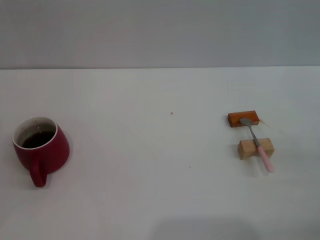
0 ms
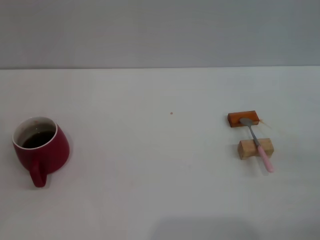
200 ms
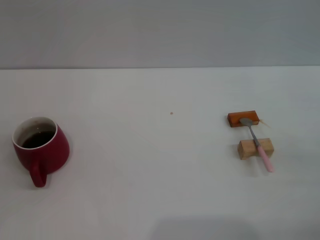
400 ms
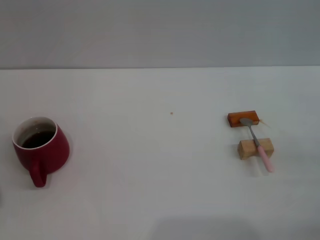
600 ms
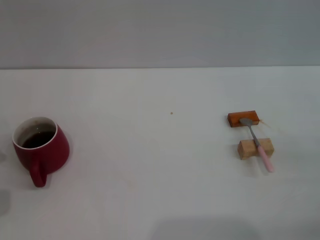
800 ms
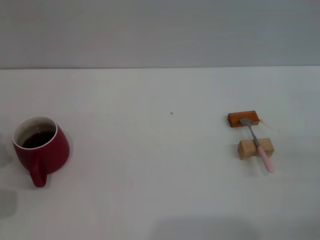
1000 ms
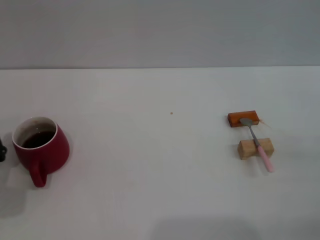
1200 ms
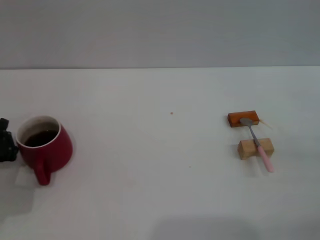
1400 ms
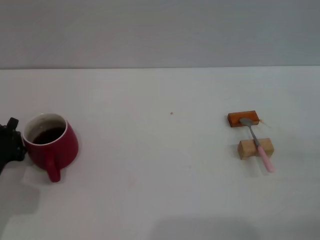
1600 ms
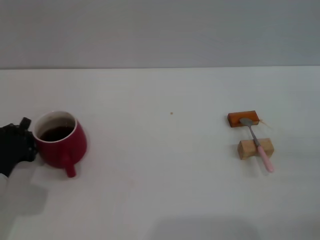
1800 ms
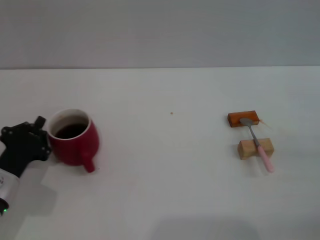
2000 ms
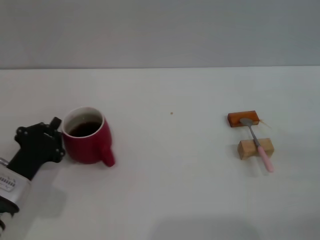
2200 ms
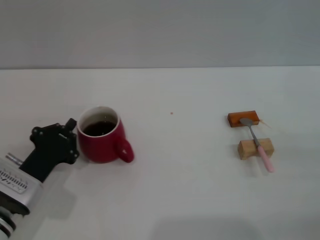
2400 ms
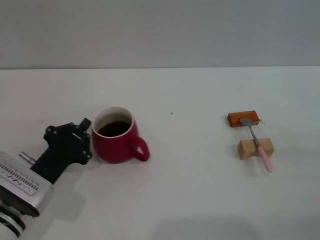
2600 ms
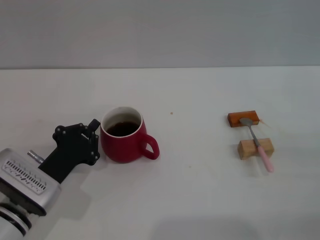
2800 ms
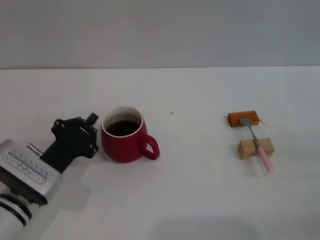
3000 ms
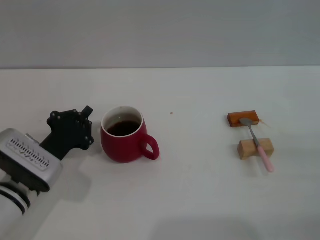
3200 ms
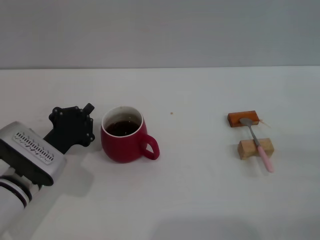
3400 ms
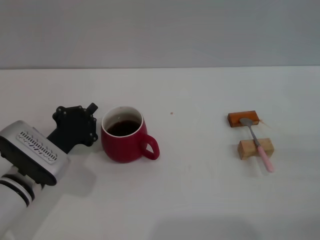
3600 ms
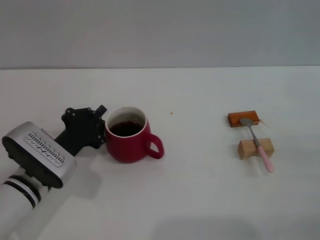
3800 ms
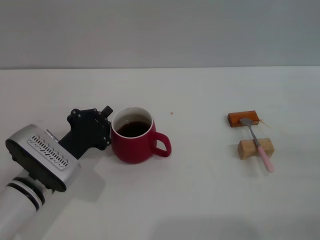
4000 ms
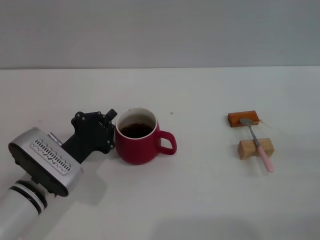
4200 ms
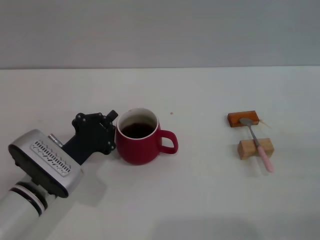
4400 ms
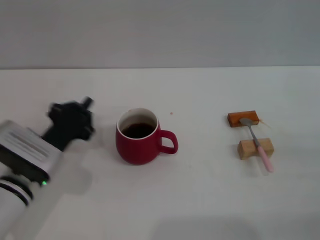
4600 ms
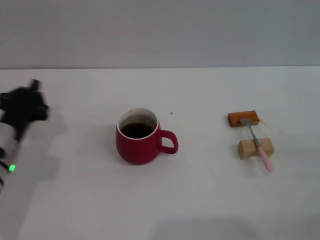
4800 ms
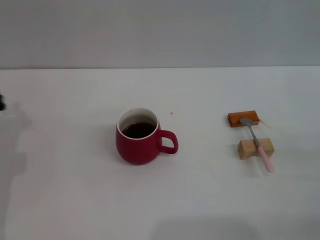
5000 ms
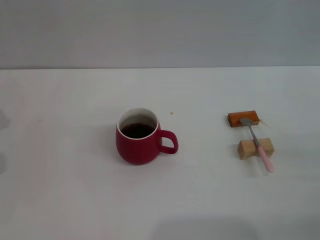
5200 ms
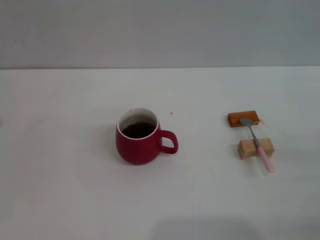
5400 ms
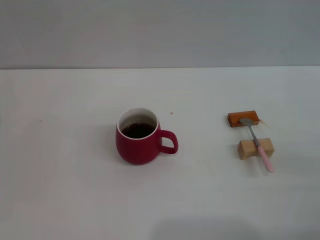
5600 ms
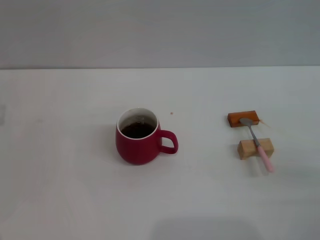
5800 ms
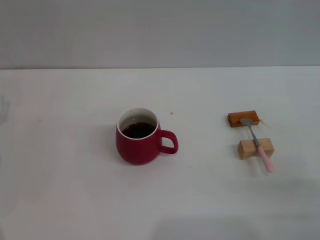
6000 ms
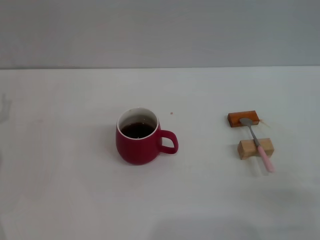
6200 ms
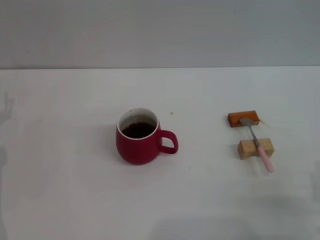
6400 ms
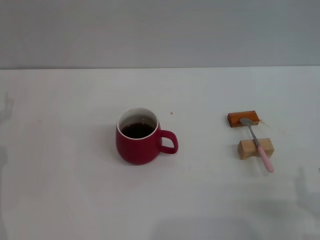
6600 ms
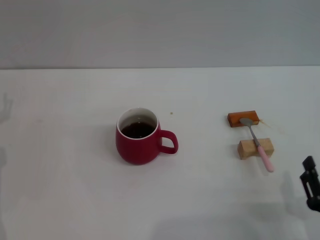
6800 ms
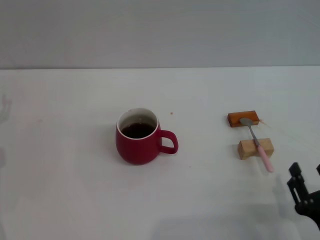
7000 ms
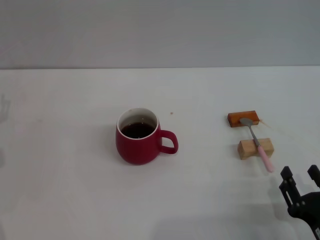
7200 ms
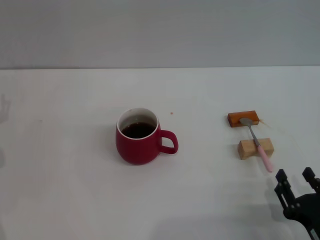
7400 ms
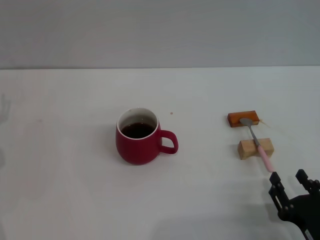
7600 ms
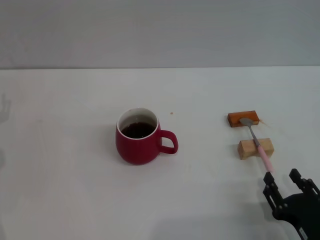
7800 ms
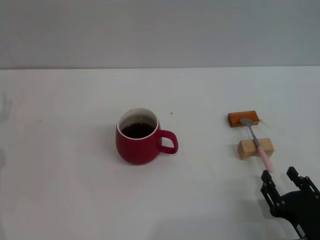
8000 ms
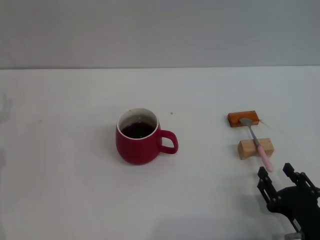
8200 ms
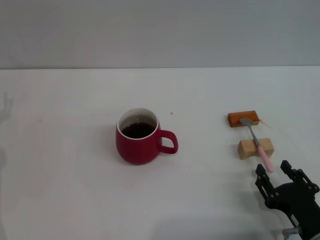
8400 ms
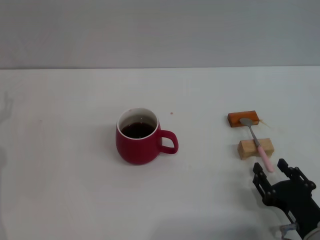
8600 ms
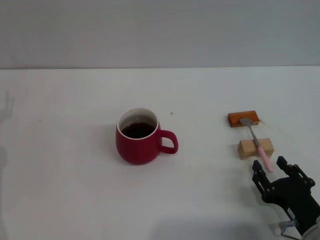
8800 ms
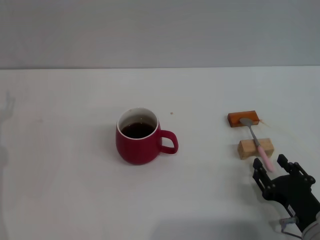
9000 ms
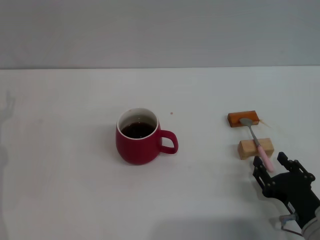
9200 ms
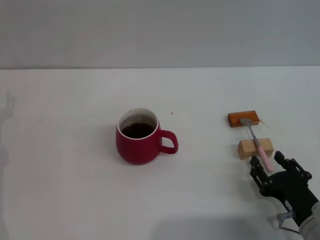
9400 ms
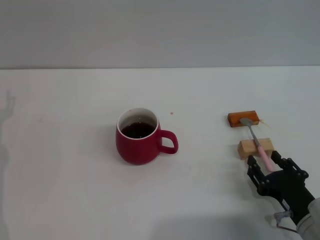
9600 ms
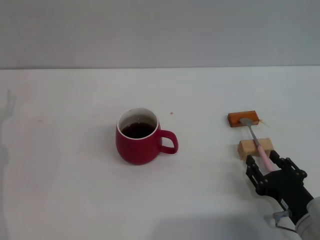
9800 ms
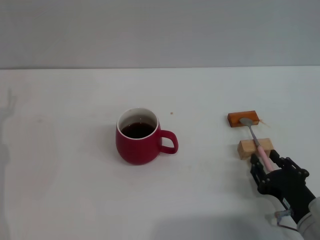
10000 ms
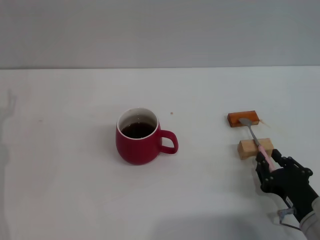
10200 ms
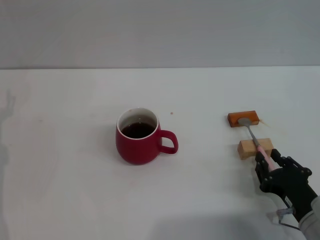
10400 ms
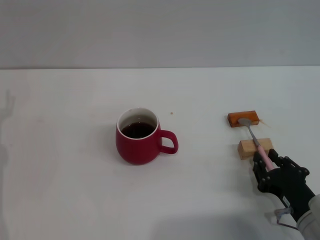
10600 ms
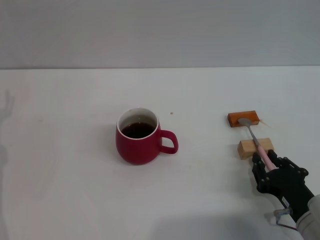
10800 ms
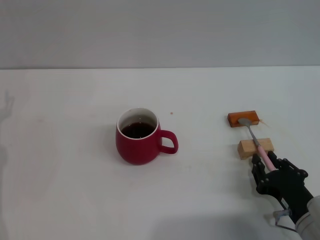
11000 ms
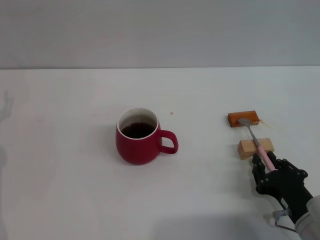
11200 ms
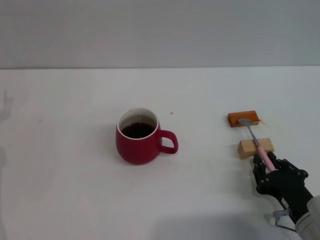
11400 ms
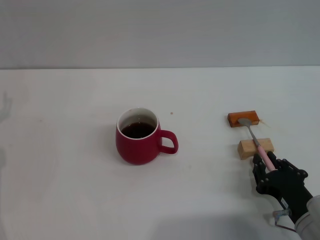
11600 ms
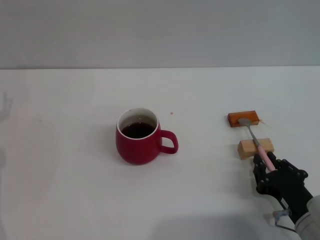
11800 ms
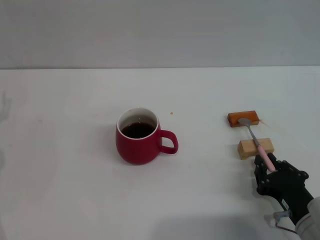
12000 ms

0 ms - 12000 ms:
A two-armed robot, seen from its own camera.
Task of the whole recording: Move the red cup to the center, lift the pink spoon, stir it three times in the cup, and put the spoon into the cup.
Step, 0 ms - 4600 ms: Move the cup with coffee to the center of view with the left gripper.
0 ms - 1600 ms: The left gripper heads to the right, covering some 5 cm, and closes.
1600 ms - 3000 ms: The left gripper heads to the right, covering some 10 cm.
3000 ms - 4400 ms: The grippers move only a little.
4400 ms - 6000 ms: The right gripper travels backward and to the left by about 10 cm. The left gripper travels to the left by about 15 cm, and opens.
6000 ms - 7600 ms: The right gripper heads to the left, covering about 5 cm.
7600 ms - 9000 ms: The grippers make only small movements.
9000 ms - 10400 ms: The right gripper closes its fingers.
10400 ms - 12000 ms: Both grippers stay put.

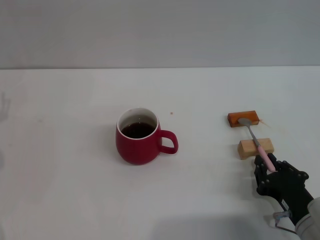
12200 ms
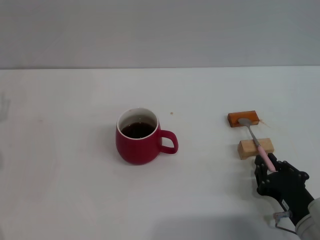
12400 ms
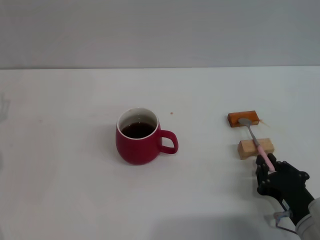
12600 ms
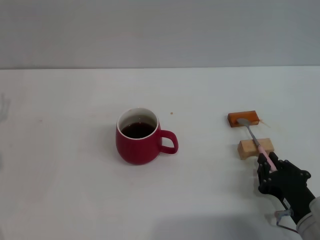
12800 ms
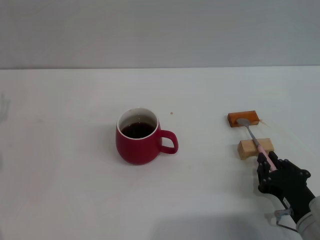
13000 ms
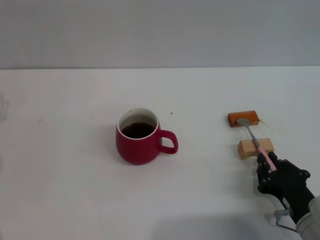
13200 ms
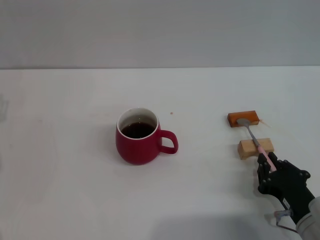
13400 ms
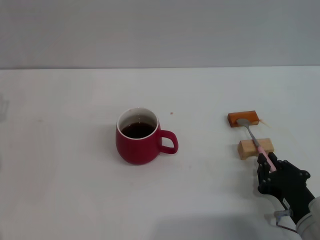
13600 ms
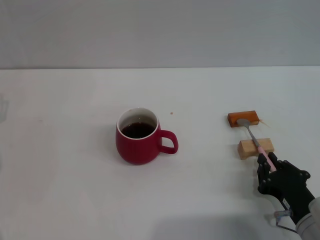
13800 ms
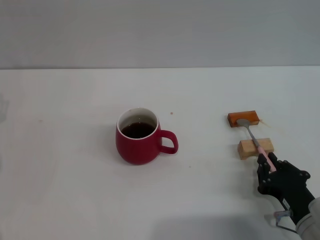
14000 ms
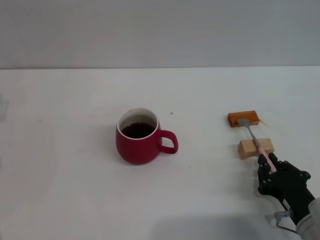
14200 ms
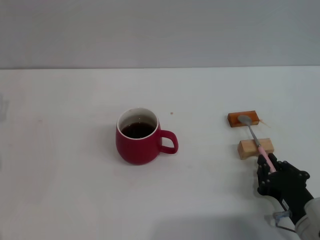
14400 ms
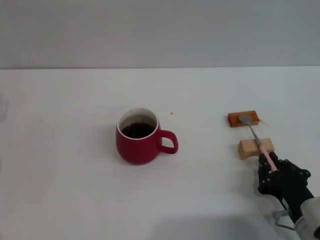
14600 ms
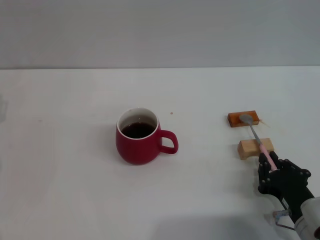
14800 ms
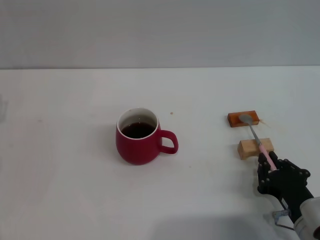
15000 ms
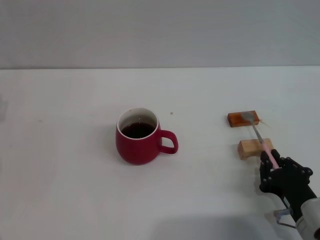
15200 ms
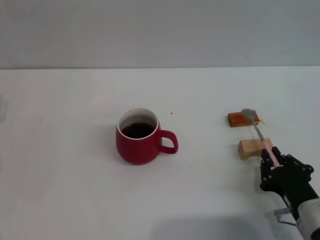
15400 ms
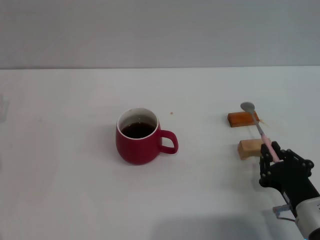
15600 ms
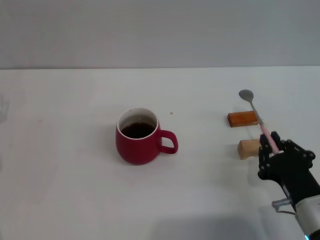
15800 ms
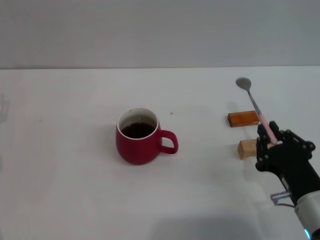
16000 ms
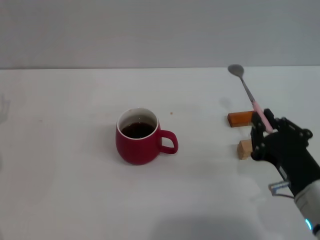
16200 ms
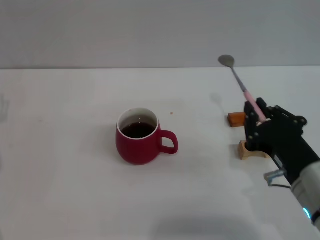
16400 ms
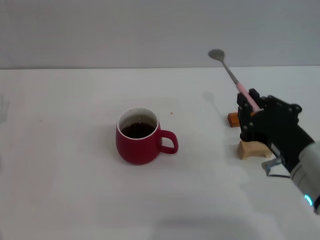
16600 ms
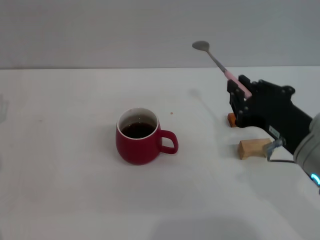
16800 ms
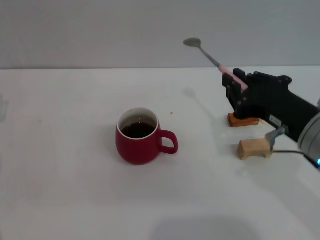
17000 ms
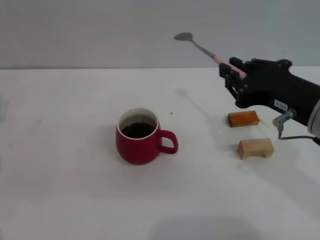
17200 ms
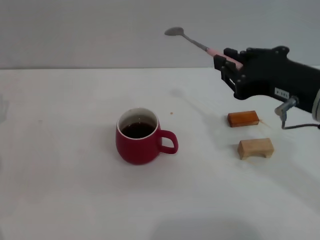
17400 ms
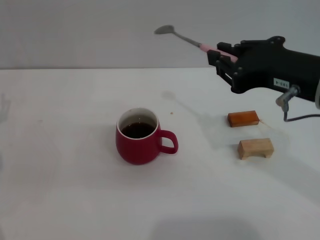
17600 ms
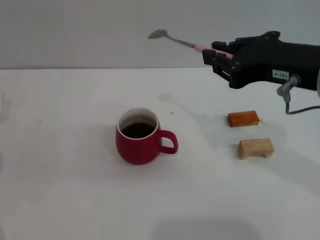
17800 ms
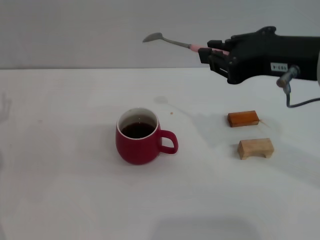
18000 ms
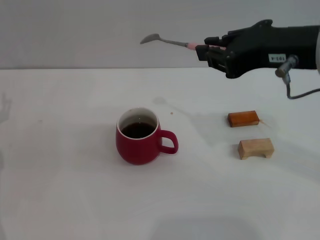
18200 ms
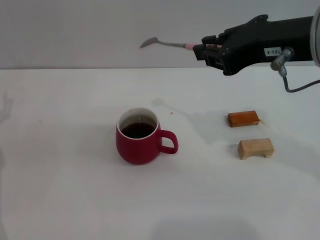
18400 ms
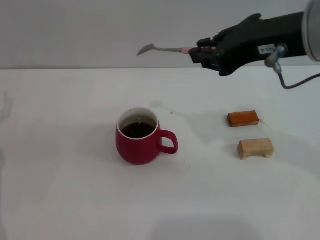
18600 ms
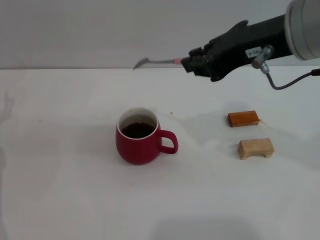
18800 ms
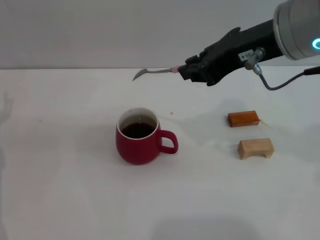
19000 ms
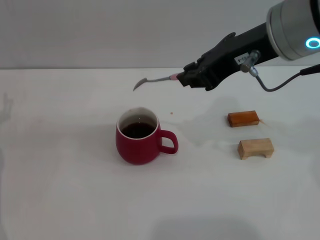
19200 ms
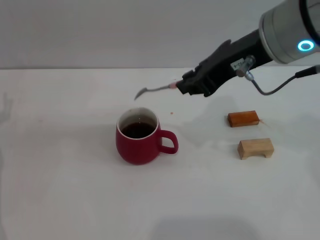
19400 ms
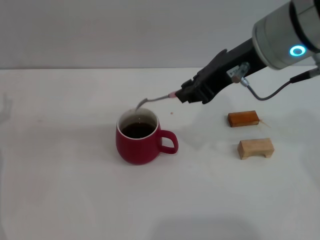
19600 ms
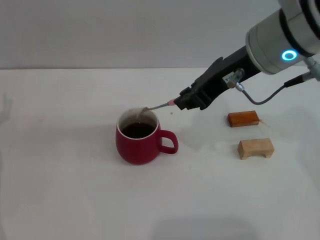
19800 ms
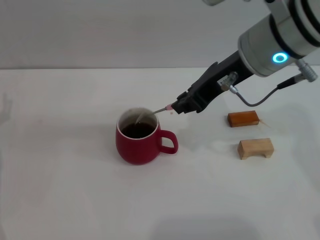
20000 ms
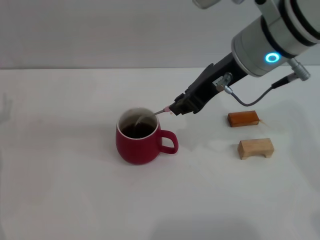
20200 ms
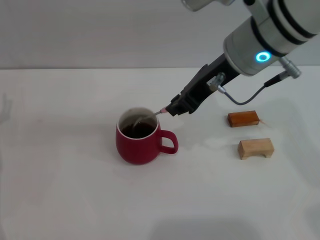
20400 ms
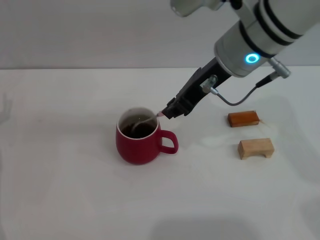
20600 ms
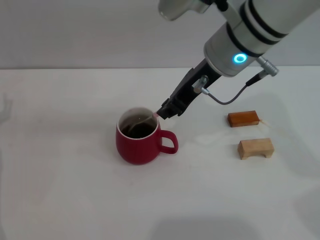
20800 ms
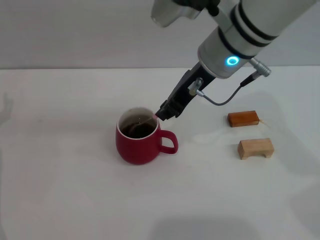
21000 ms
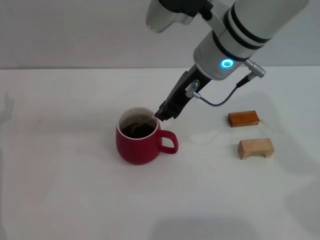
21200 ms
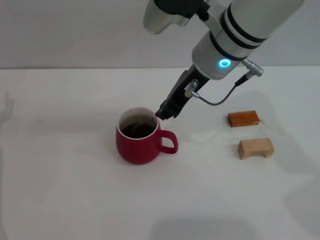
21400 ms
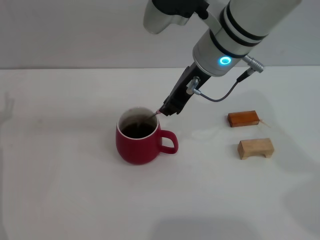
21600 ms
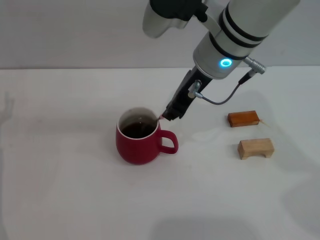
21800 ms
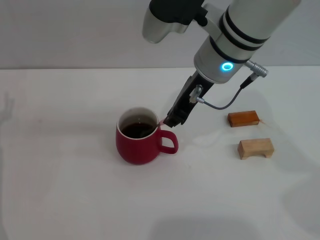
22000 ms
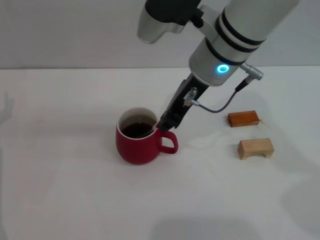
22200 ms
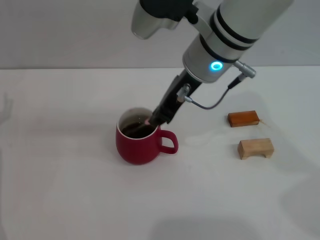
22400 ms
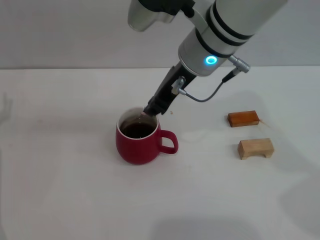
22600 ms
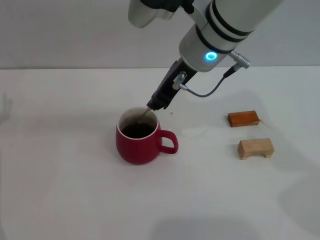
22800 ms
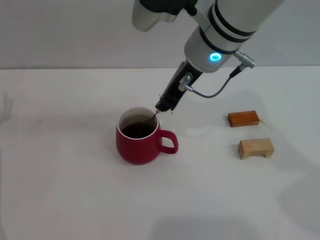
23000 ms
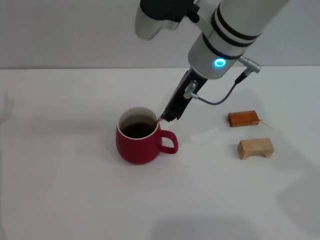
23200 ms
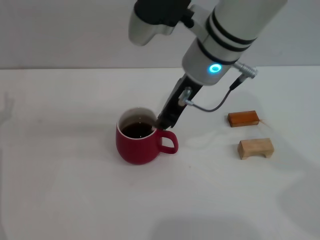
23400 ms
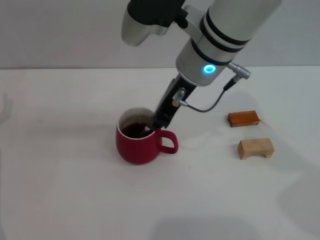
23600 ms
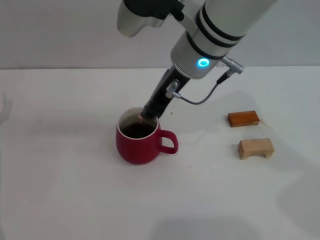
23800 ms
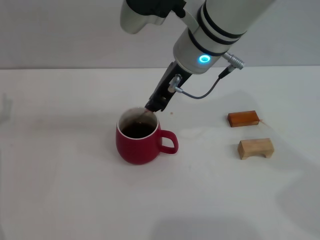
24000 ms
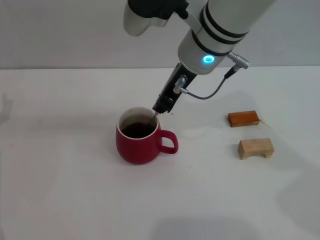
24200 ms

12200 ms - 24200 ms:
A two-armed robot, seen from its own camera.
Task of the whole recording: Move the red cup to the center, lift the pink spoon, stir it three times in the cup, and put the spoon into the cup.
Step, 12200 ms - 16200 ms: Pick up the spoon with the right gripper.
12200 ms - 13800 ms: Both grippers stay about where they are.
13800 ms - 15200 ms: The grippers stay close to where they were, moving slightly.
15200 ms - 16600 ms: The right gripper shifts some 10 cm upward.
16600 ms - 18200 ms: The right gripper moves upward, about 15 cm.
18200 ms - 19800 ms: The right gripper heads forward, covering some 5 cm.
19800 ms - 21200 ms: The right gripper heads to the left, covering approximately 5 cm.
21200 ms - 24200 ms: The grippers stay close to where they were, moving slightly.
